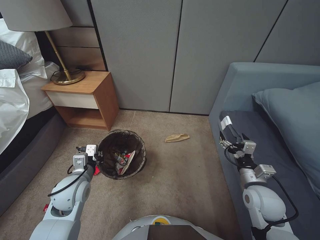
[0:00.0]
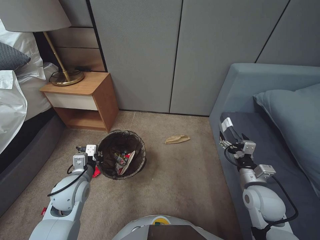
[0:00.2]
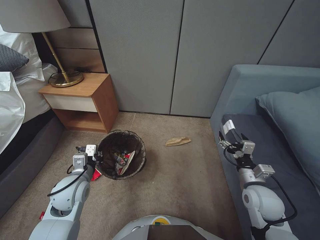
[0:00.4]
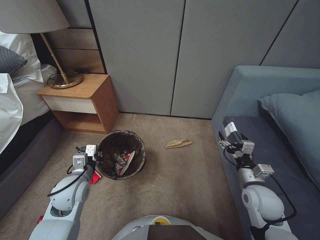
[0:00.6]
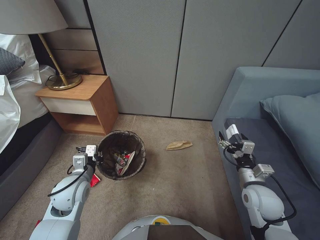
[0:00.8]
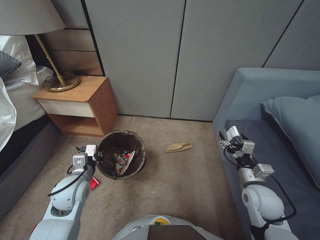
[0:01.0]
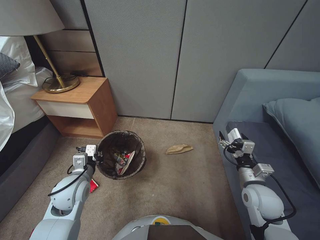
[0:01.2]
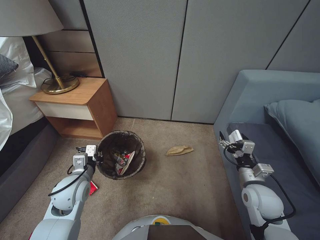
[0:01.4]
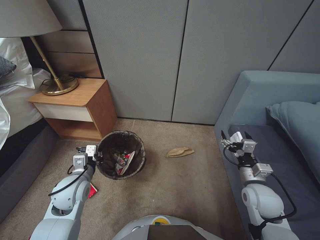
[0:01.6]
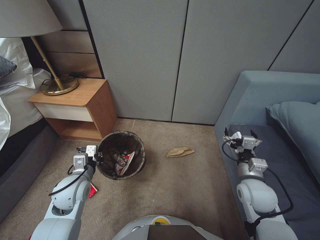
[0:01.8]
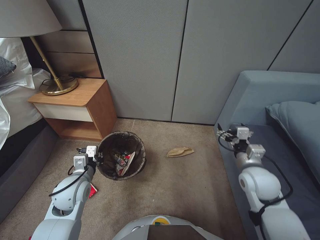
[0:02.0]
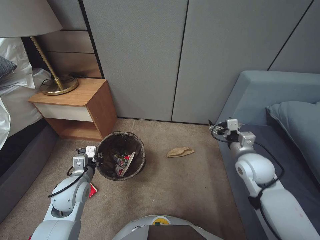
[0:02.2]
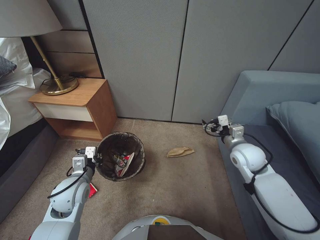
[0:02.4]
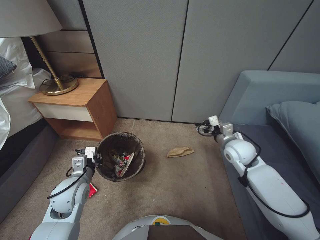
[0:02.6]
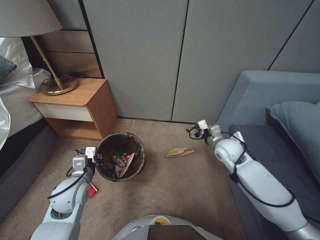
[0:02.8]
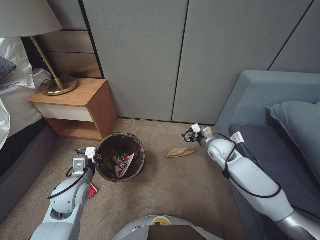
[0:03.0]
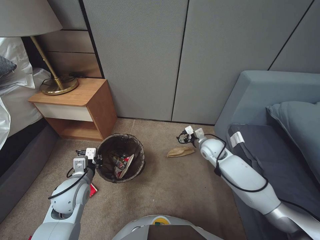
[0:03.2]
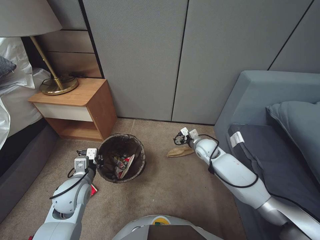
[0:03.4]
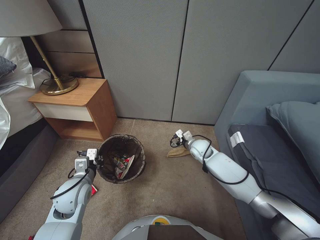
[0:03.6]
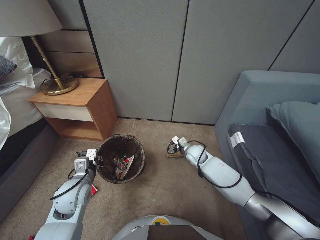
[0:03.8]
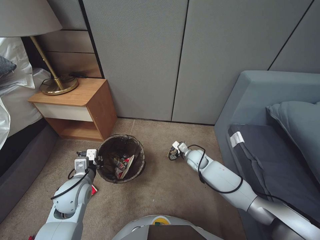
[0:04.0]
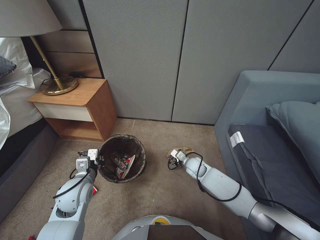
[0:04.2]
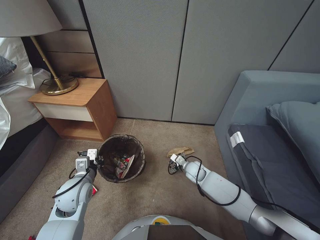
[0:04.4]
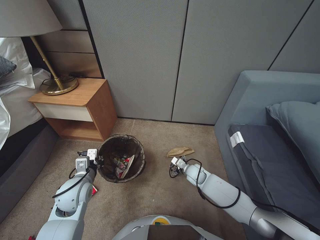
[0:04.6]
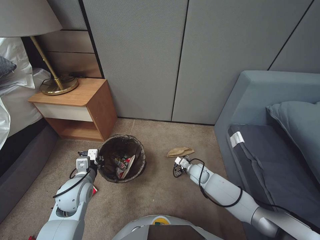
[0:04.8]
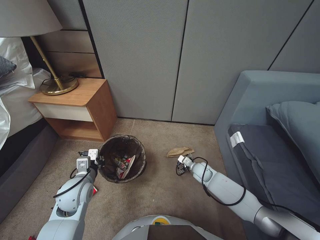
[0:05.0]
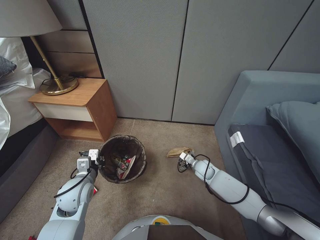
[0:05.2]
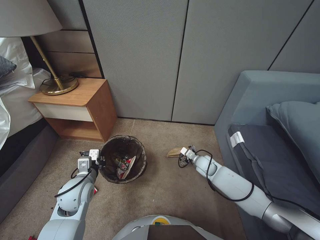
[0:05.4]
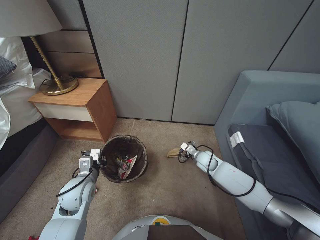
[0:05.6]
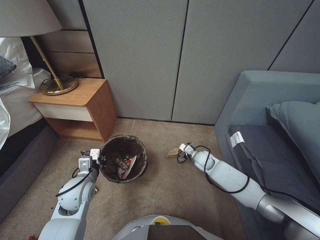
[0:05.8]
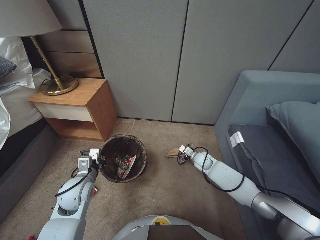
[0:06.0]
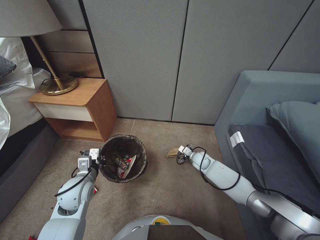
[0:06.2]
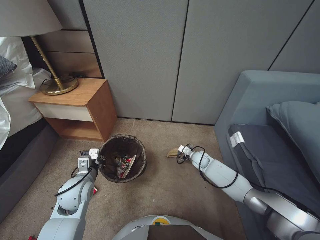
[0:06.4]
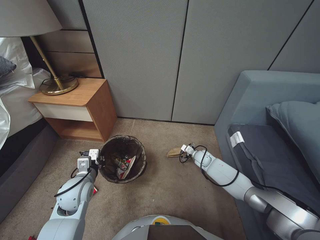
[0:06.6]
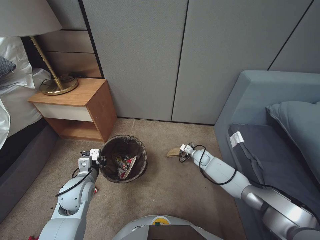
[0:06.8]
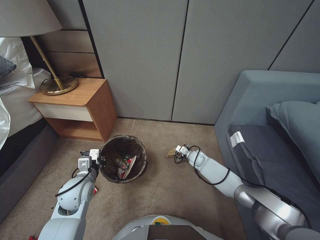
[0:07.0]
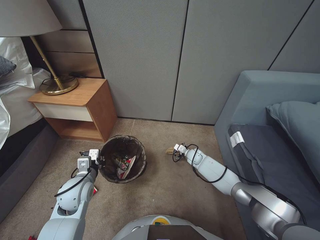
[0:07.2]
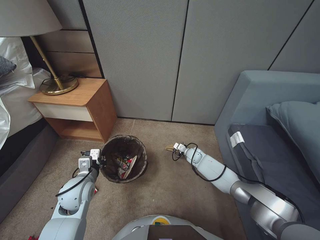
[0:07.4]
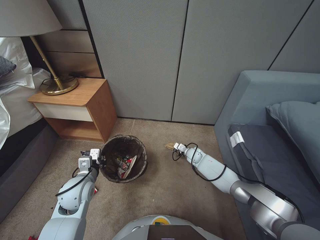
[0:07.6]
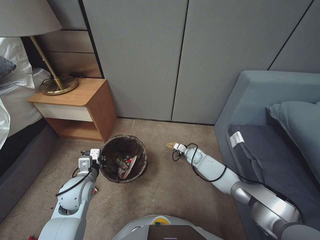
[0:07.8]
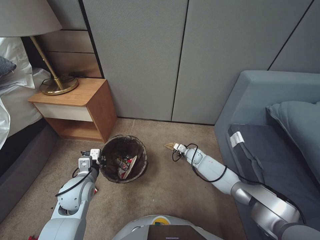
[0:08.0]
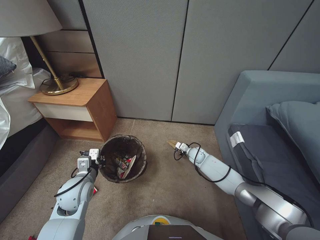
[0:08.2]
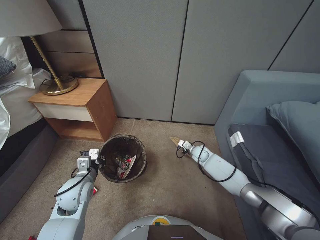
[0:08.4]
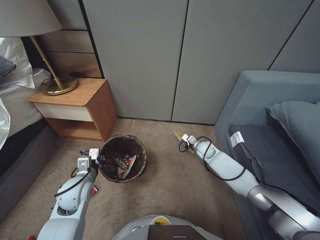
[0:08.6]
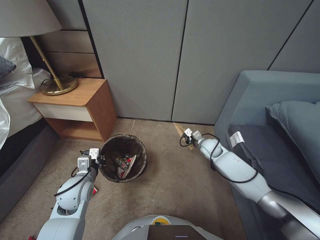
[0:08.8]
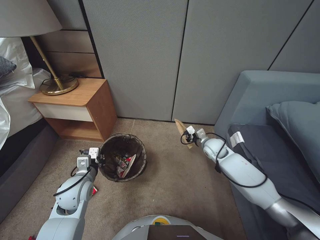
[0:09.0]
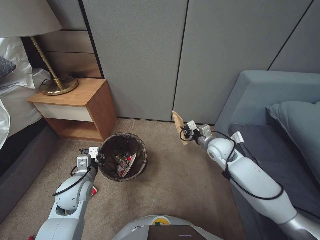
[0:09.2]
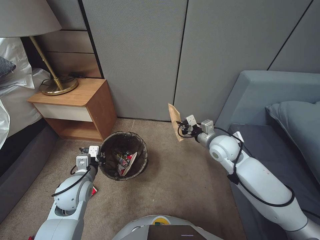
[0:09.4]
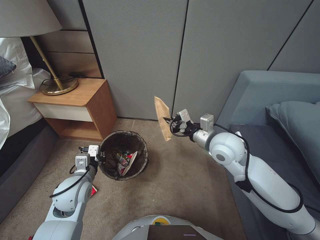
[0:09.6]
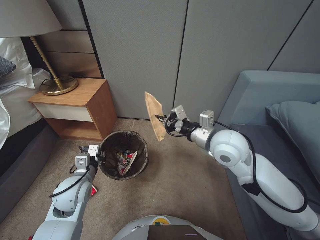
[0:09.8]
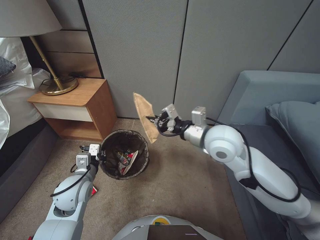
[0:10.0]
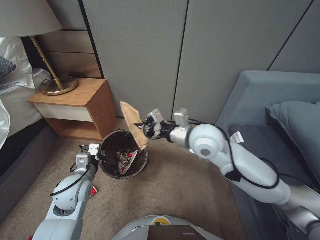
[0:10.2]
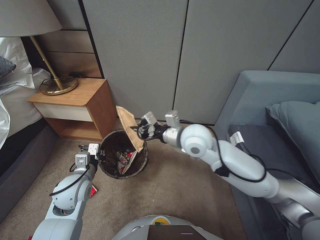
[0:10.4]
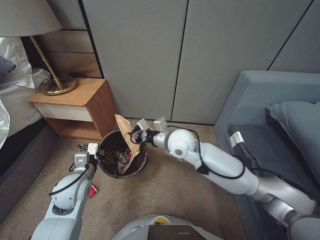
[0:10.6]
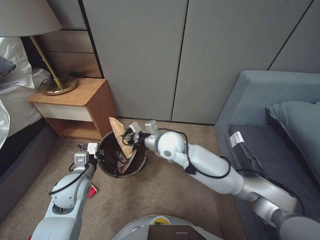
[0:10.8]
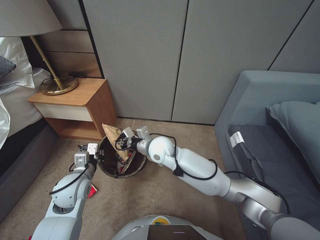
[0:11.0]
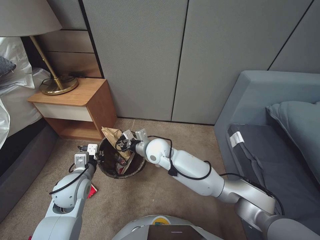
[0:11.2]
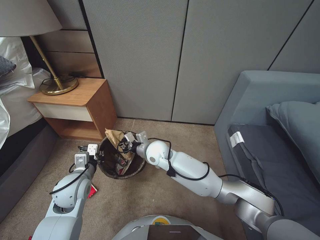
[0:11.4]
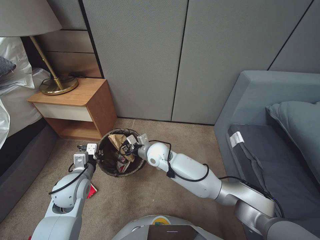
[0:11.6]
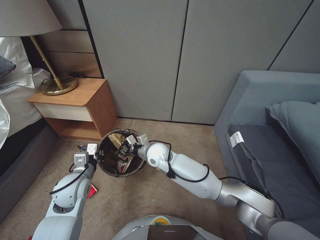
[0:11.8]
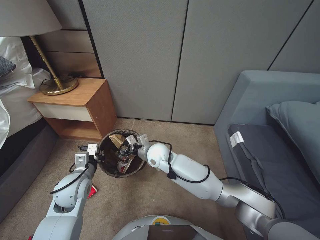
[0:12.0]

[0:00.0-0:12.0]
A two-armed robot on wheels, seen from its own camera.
Task of the whole recording: Pick up the trash bin, then pick up the garbage from the floor and place it into the trash bin.
0:00.0 to 0:01.6: Both grippers stay about where they are.
0:01.6 to 0:03.0: The right gripper travels forward by some 20 cm.
0:03.0 to 0:04.4: The right gripper heads downward and to the left, covering roughly 20 cm.
0:04.4 to 0:06.0: The right gripper changes place by approximately 5 cm.
0:06.0 to 0:07.6: The right gripper moves forward, about 5 cm, and closes up.
0:07.6 to 0:09.0: The right gripper is displaced upward by some 15 cm, and closes its fingers.
0:09.0 to 0:10.4: The right gripper travels upward, to the left and backward by about 30 cm.
0:10.4 to 0:12.0: The right gripper is displaced downward and to the left by about 20 cm.

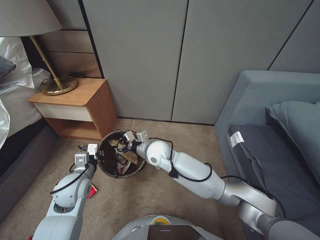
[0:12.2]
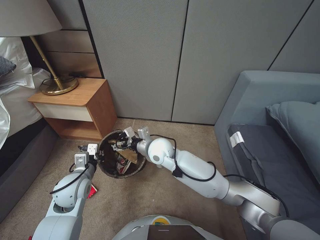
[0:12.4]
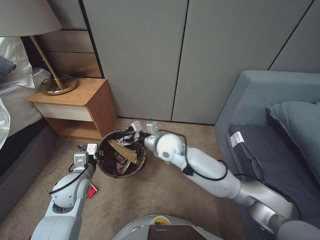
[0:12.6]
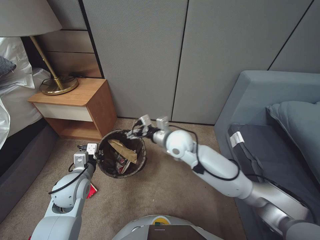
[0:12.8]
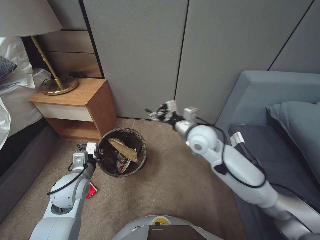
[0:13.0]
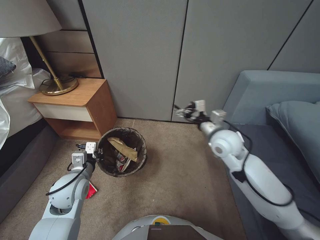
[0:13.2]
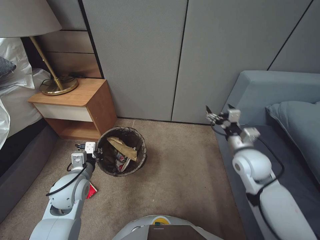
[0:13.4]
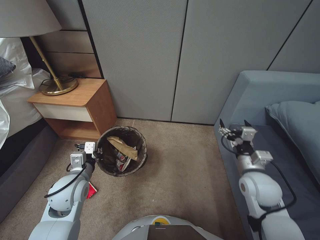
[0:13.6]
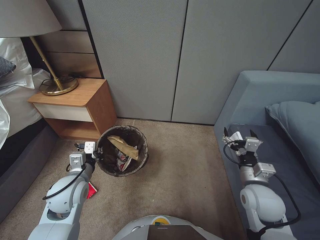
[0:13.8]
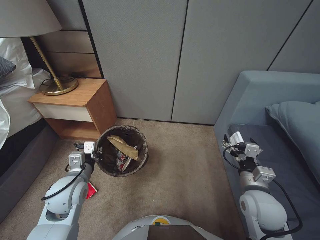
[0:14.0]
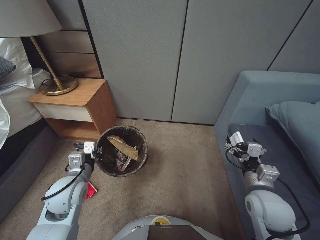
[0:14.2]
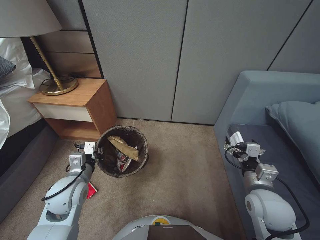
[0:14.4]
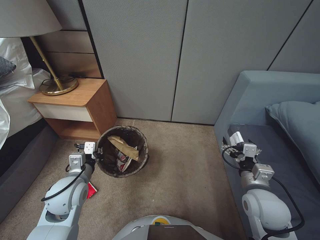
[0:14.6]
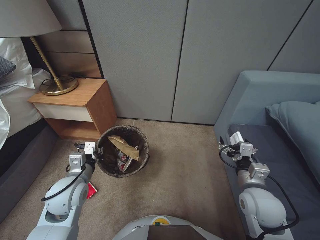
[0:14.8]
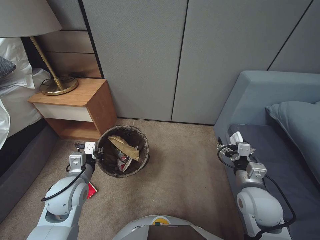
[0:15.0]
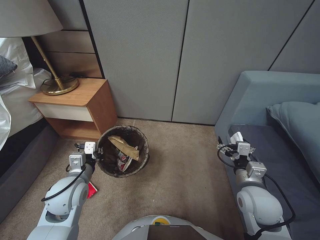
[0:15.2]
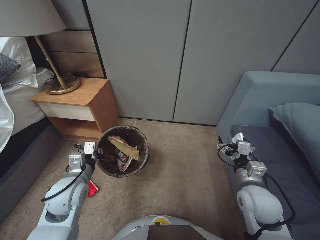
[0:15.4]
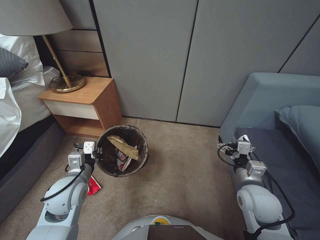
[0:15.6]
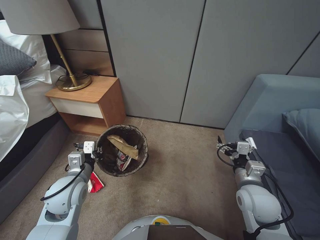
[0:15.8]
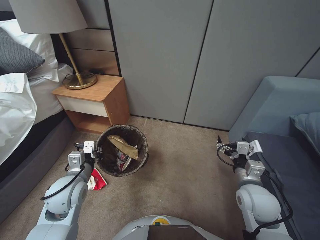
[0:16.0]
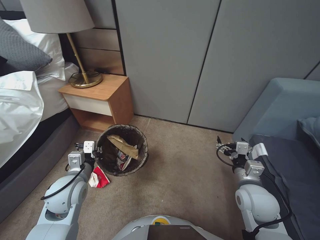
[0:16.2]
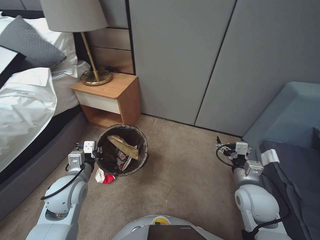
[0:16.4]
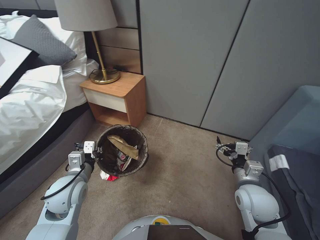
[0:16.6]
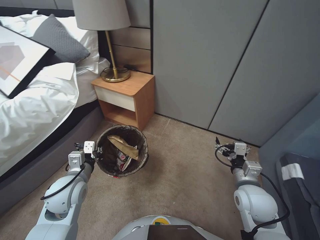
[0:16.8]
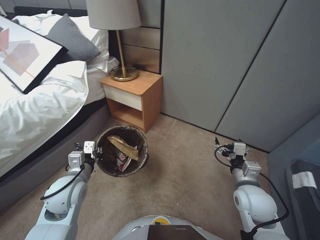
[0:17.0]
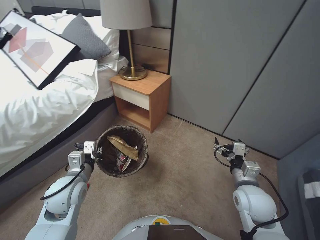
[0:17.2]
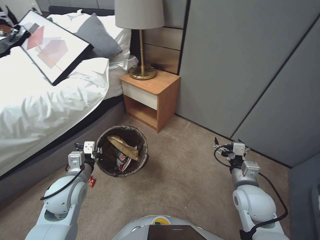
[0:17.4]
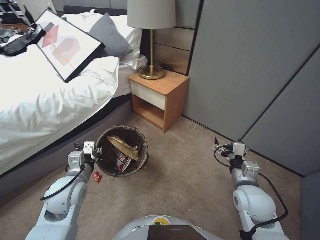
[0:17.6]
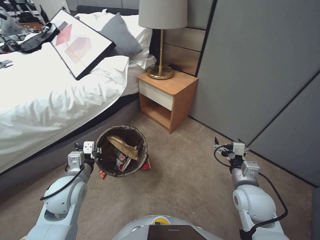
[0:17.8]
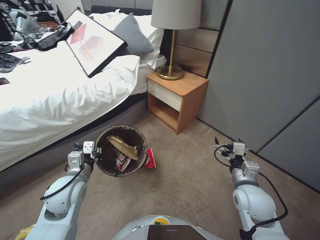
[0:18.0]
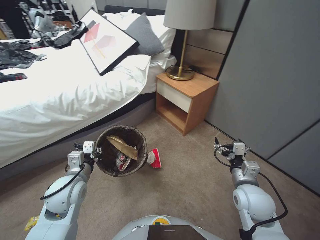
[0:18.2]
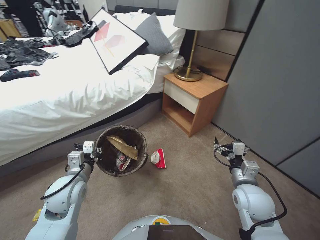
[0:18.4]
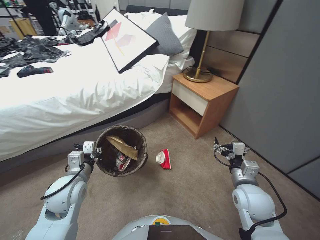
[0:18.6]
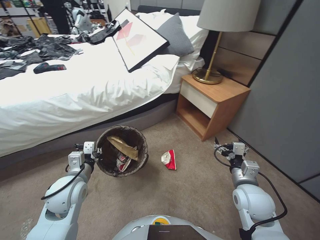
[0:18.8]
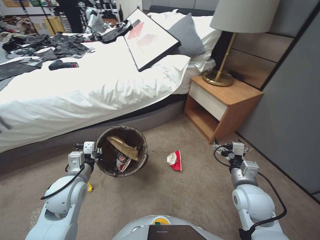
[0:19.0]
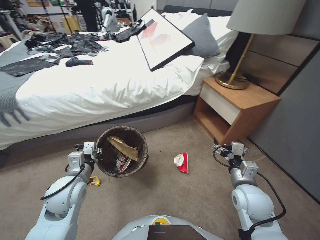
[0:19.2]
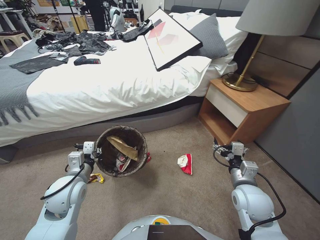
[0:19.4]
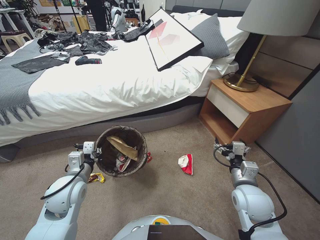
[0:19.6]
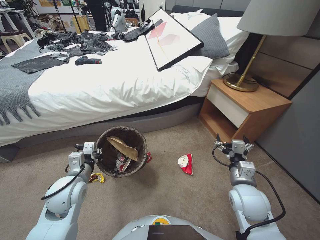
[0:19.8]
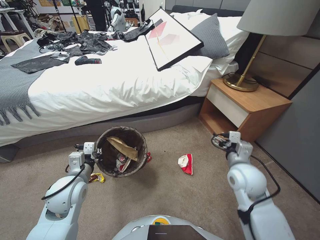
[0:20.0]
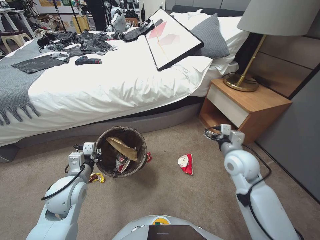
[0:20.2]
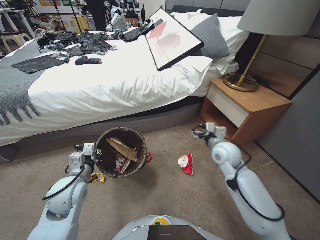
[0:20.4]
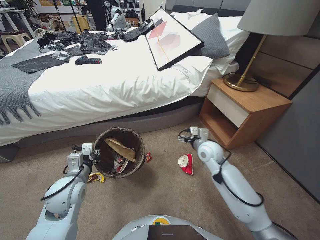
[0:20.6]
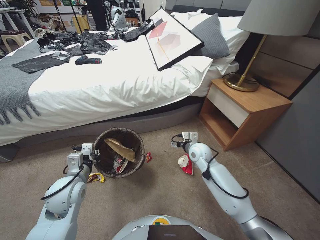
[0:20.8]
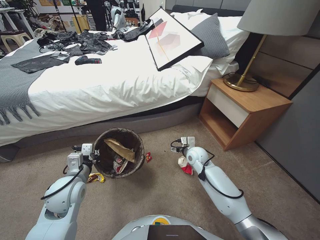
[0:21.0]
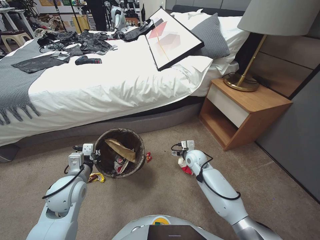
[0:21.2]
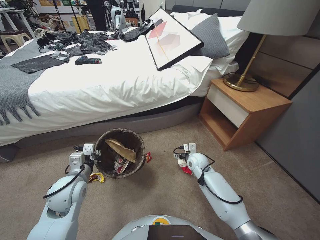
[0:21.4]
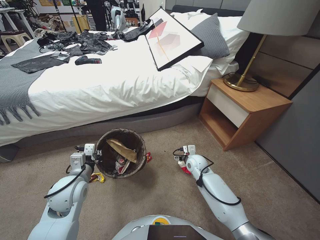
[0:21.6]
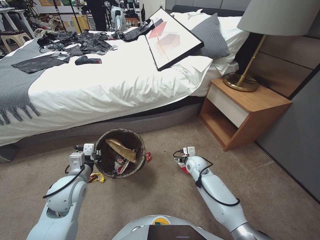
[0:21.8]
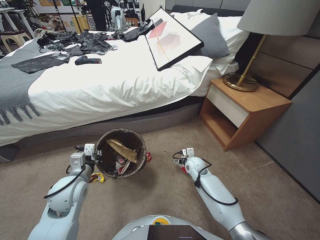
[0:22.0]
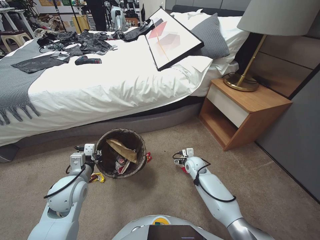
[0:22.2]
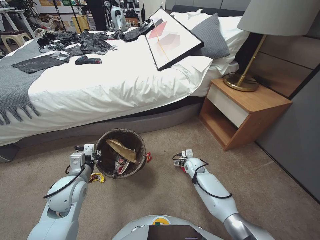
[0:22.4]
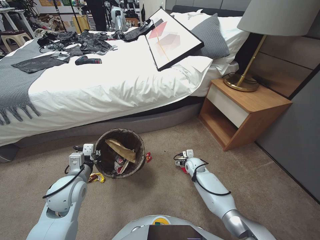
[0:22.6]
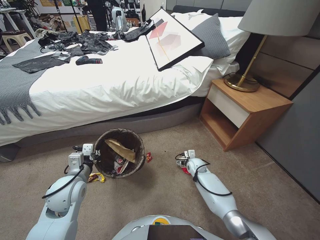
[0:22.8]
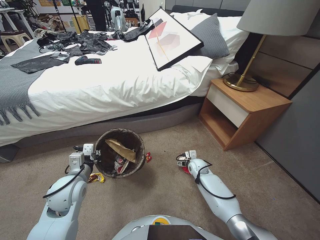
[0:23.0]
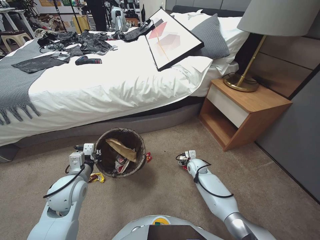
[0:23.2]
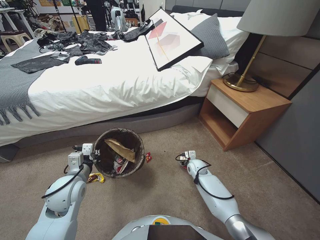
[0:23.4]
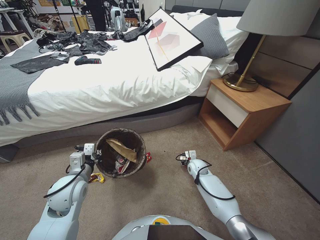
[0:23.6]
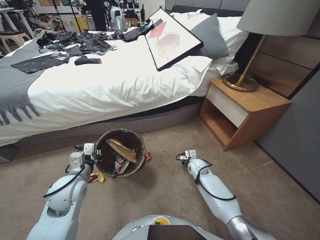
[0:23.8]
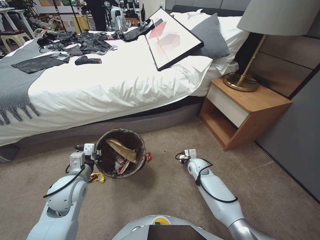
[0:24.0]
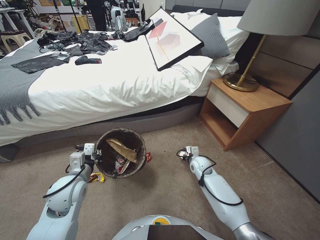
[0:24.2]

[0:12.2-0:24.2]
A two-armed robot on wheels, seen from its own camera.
Task of the whole recording: Pick up the trash bin, then pick up the garbage from the floor and place it into the trash bin.
0:12.2 to 0:13.8: The right gripper shifts some 35 cm to the right and backward, and opens.
0:13.8 to 0:15.2: There are only small adjustments of the grippers.
0:19.8 to 0:21.2: The right gripper shifts about 25 cm forward, downward and to the left.
0:21.2 to 0:22.6: The right gripper moves downward, roughly 10 cm.
0:22.6 to 0:24.2: The right gripper closes its fingers.
